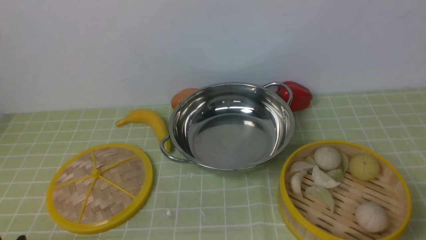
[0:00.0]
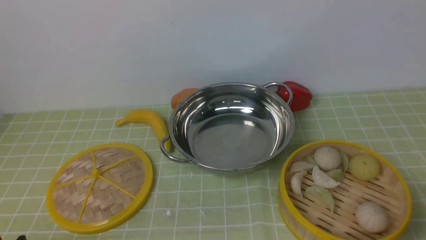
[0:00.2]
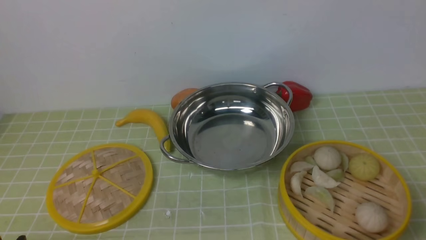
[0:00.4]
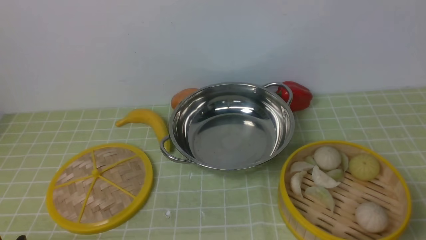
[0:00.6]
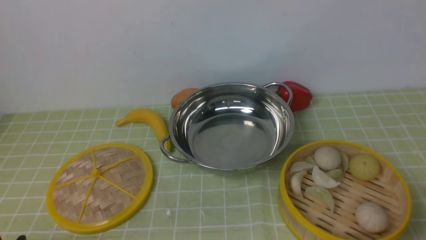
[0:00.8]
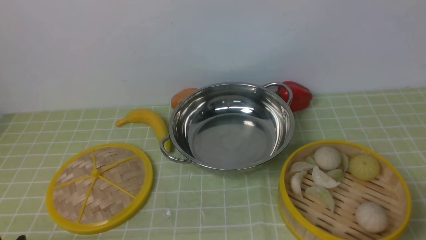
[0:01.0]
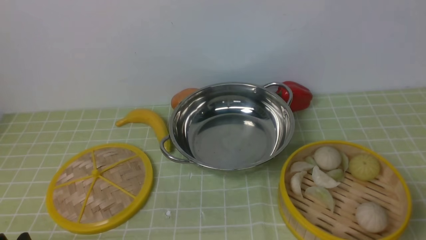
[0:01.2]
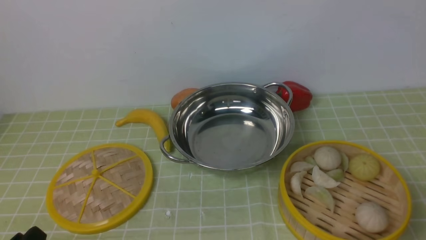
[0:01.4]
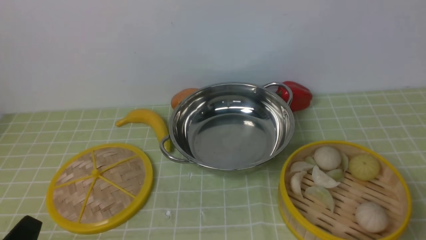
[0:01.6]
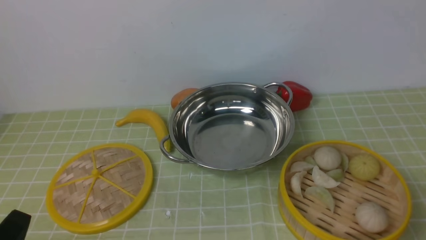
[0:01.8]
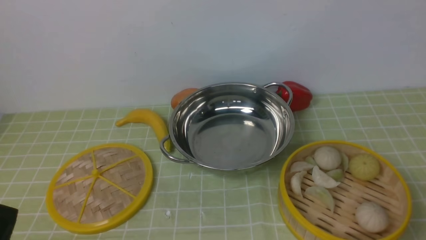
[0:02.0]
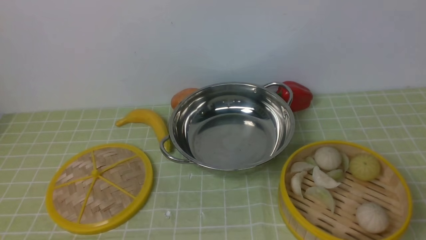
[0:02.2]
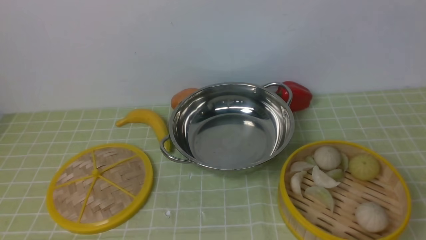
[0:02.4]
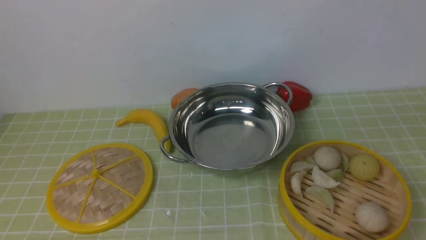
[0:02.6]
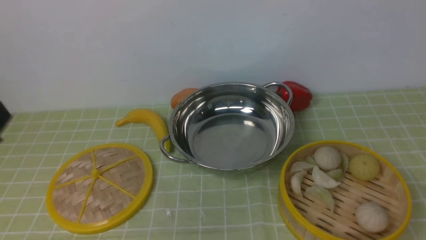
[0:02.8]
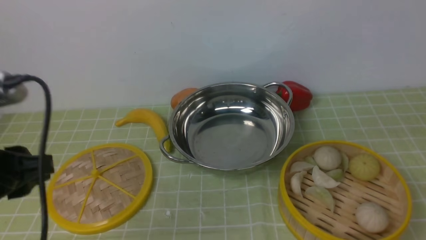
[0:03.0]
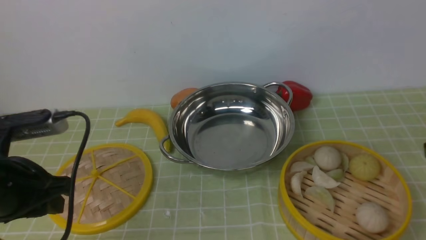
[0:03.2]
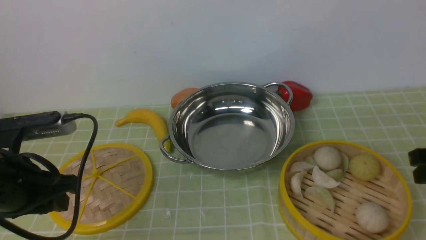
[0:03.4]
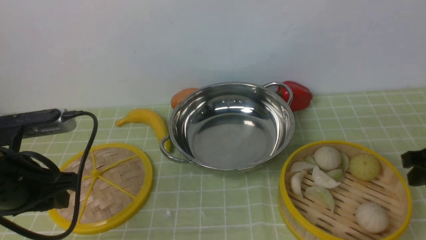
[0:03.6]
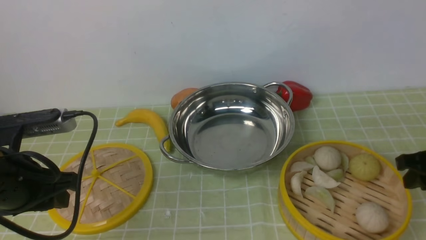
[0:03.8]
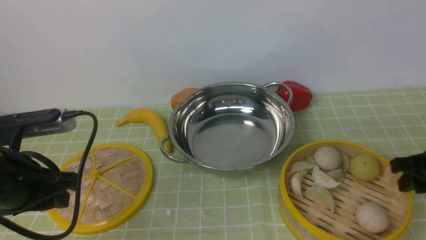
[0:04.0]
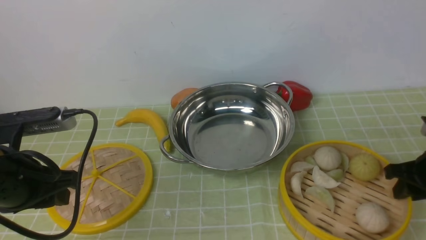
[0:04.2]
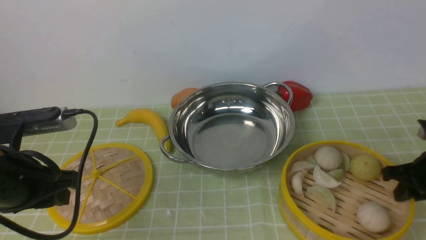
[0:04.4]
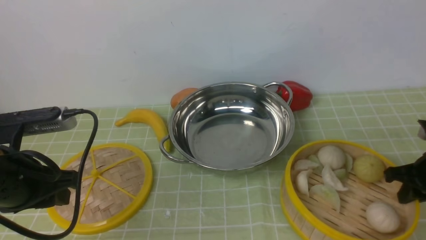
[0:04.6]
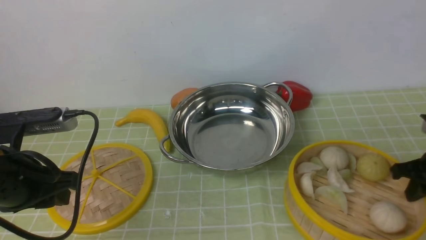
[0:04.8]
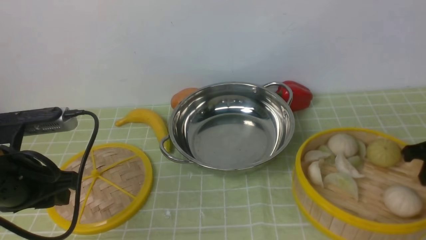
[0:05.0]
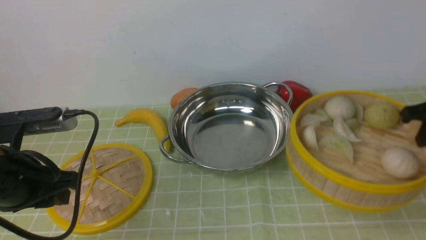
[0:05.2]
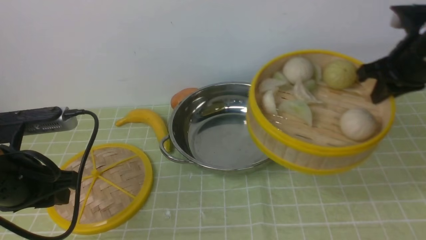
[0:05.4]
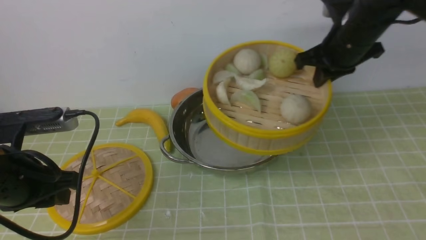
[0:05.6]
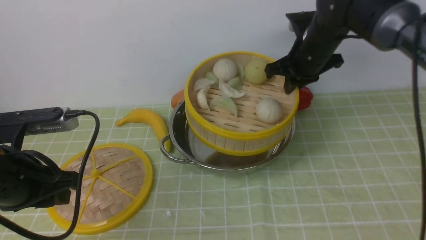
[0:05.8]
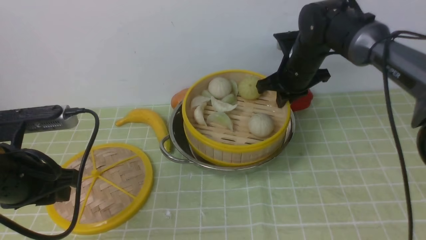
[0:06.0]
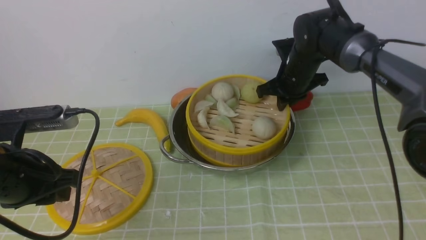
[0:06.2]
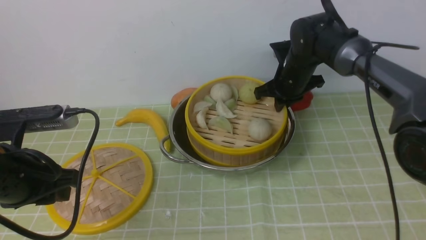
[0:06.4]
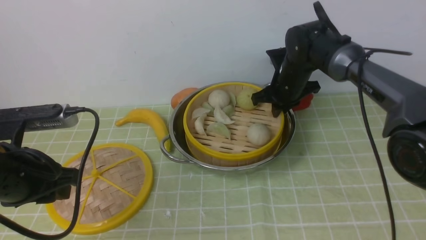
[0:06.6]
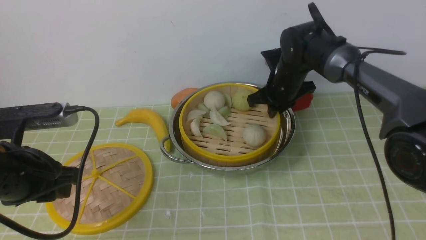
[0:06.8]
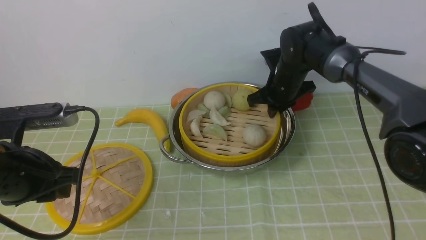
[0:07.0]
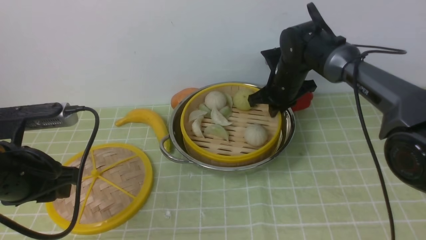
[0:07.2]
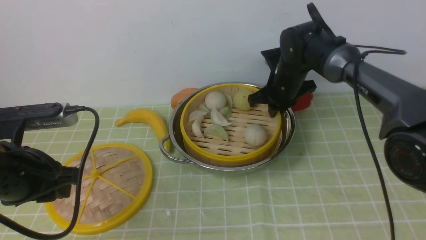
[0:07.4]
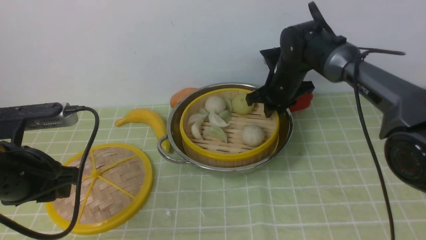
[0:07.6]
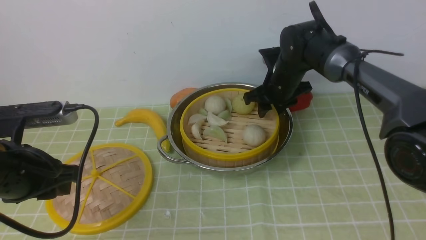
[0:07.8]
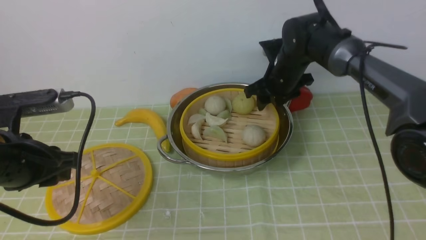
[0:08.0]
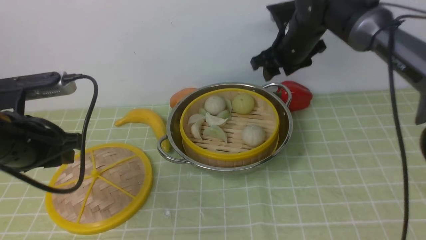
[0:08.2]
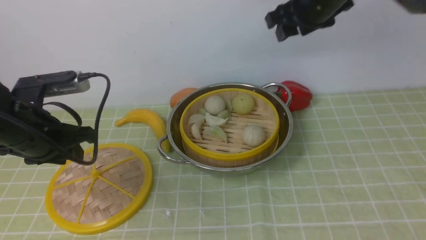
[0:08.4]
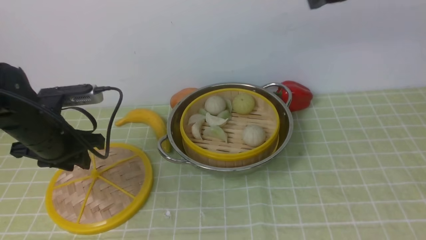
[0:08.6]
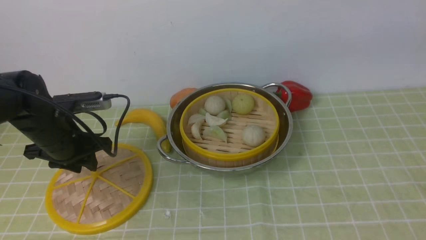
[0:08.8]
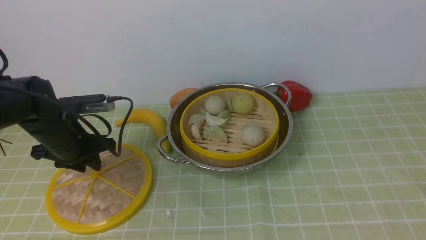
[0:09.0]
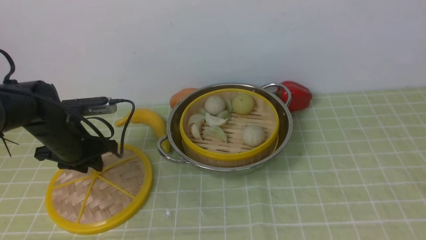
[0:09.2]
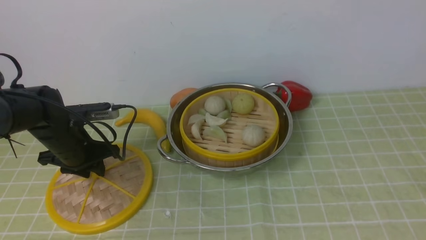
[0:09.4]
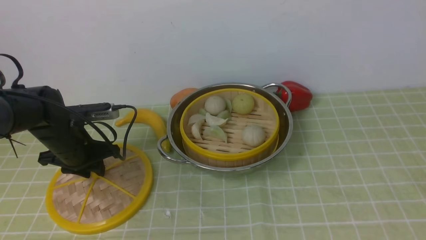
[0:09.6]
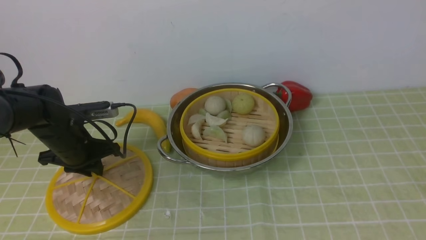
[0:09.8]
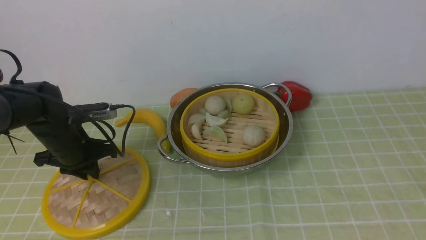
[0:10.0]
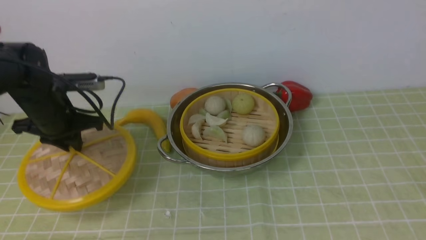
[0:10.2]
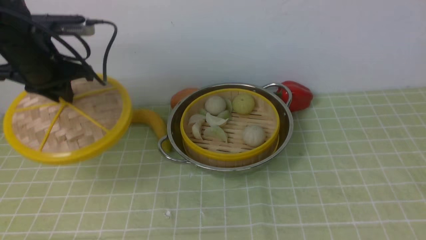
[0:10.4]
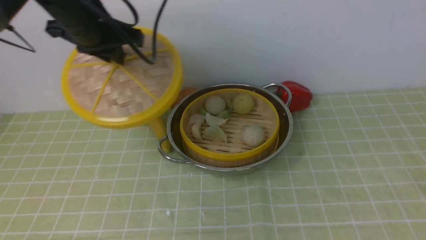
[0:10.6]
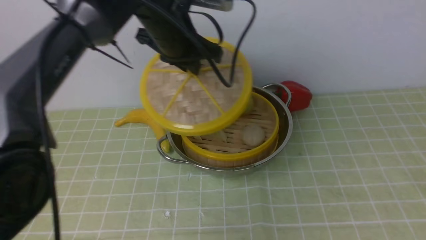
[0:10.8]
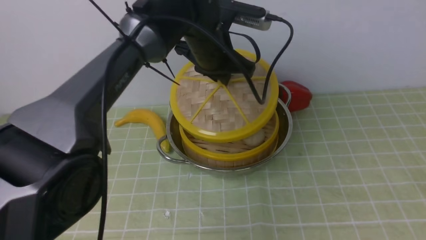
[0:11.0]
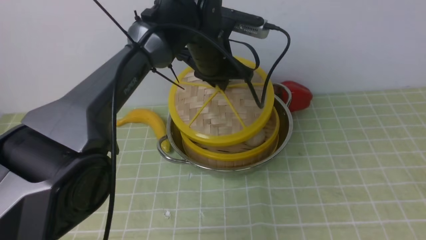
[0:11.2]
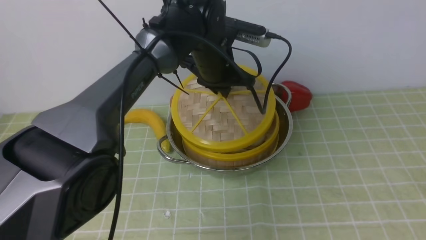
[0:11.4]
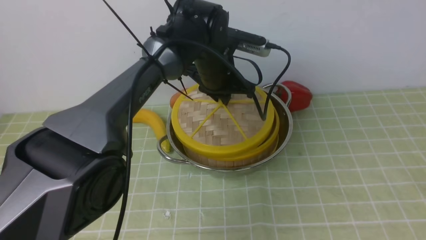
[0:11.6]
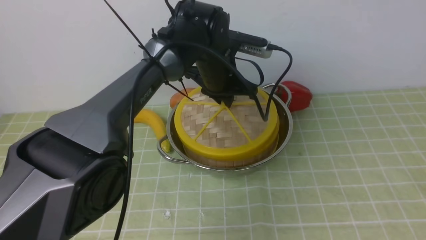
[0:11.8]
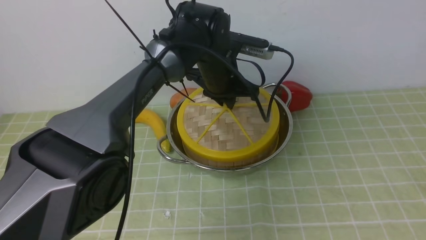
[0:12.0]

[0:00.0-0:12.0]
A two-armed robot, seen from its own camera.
Task of the whole recording: place the steamer in the pot on the green tablecloth, and put the lid on the steamer.
Step, 0.0 to 5.2 s: use the right arm to lift the steamer closest to it.
Step, 5.4 to 8.4 s: use the right arm to put the steamer into the iron steamer pot in the middle.
Step, 8.6 to 10.4 s: use the left arm to lift the lid of the steamer.
1.6 to 3.0 s: The left gripper travels upward and forward by about 15 cm.
3.0 to 4.4 s: The right gripper travels downward and forward by about 20 cm. The left gripper heads downward and forward, covering some 10 cm.
4.4 to 6.0 s: The right gripper heads forward, to the left and upward, covering roughly 25 cm.
6.0 to 7.6 s: The right gripper is displaced downward by about 5 cm.
7.6 to 9.0 s: The right gripper heads backward, upward and to the right, covering approximately 50 cm, and opens up, while the left gripper heads forward and downward, covering approximately 15 cm.
9.0 to 10.4 s: The right gripper shifts some 15 cm backward; the left gripper goes some 10 cm upward.
10.4 to 12.0 s: The left gripper shifts roughly 25 cm to the right.

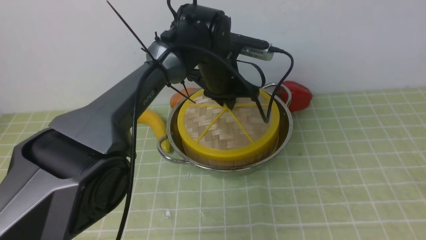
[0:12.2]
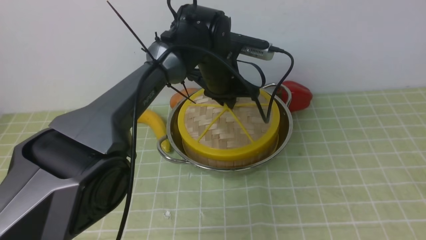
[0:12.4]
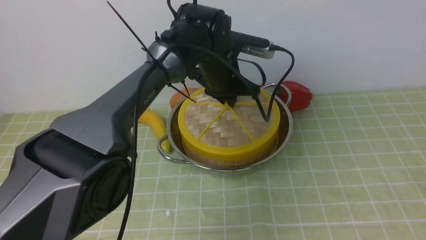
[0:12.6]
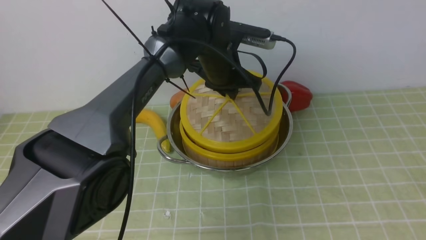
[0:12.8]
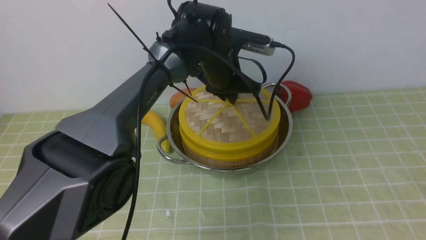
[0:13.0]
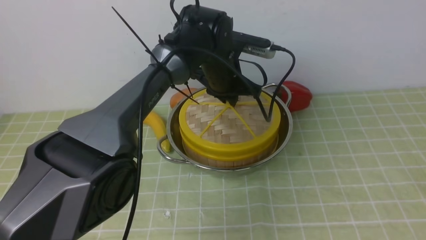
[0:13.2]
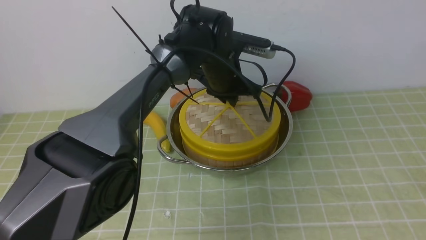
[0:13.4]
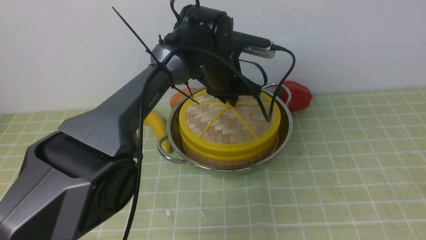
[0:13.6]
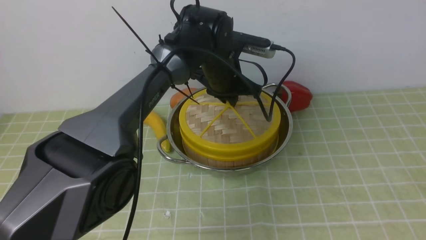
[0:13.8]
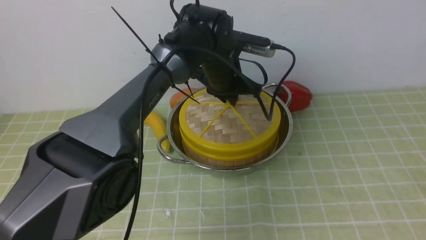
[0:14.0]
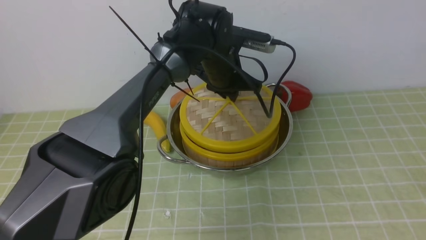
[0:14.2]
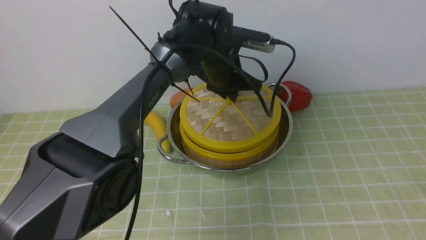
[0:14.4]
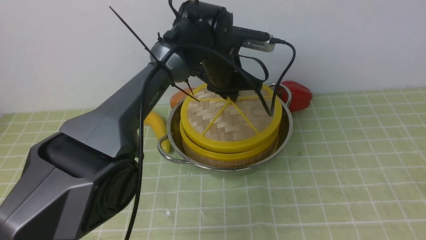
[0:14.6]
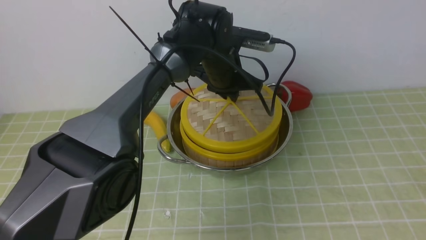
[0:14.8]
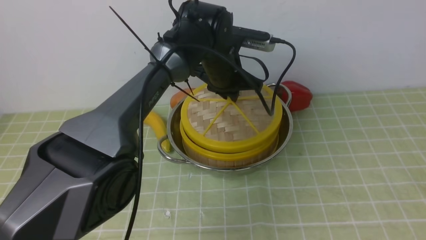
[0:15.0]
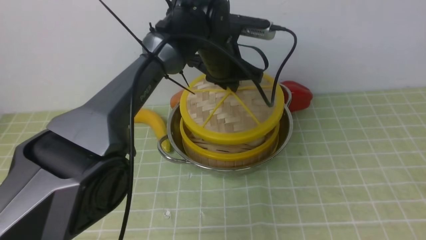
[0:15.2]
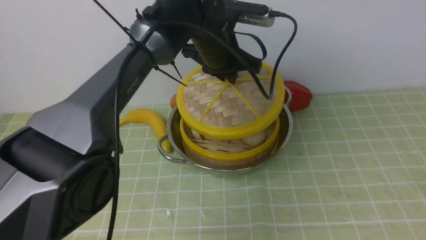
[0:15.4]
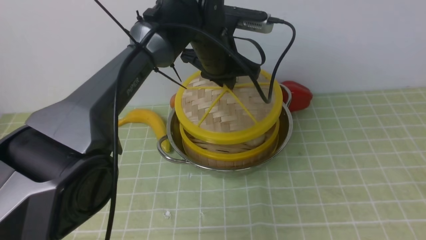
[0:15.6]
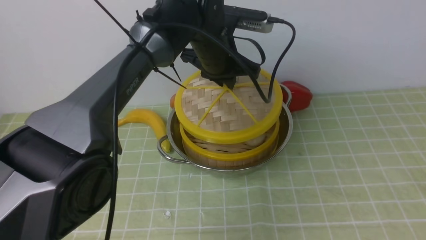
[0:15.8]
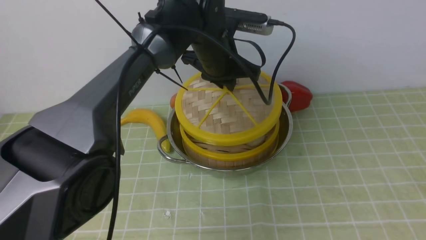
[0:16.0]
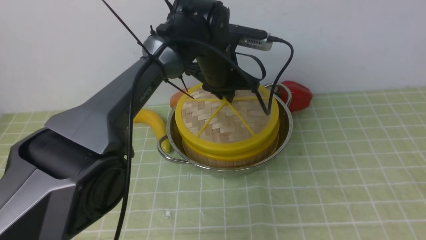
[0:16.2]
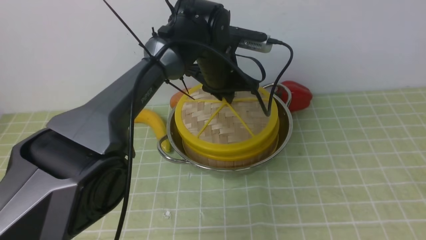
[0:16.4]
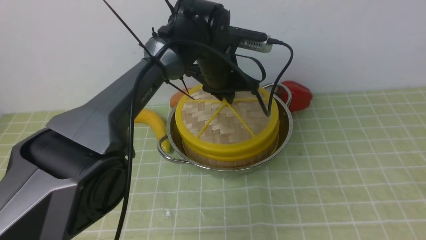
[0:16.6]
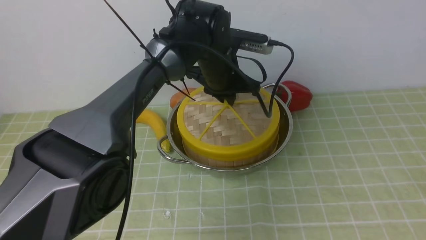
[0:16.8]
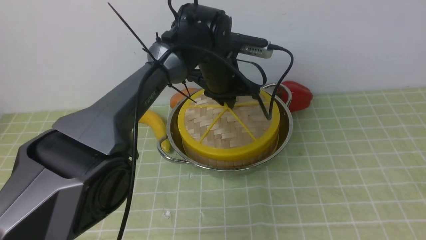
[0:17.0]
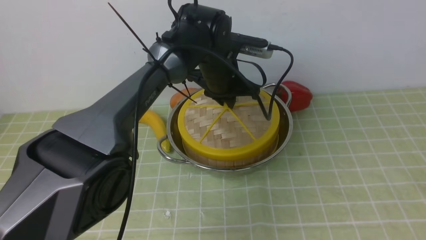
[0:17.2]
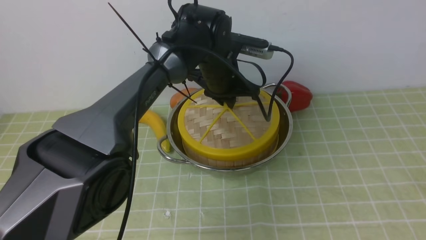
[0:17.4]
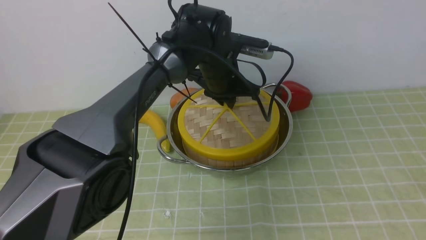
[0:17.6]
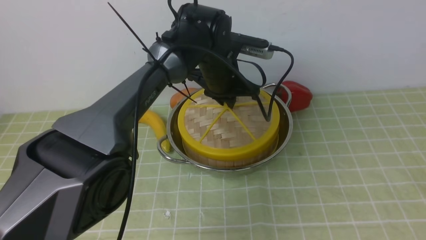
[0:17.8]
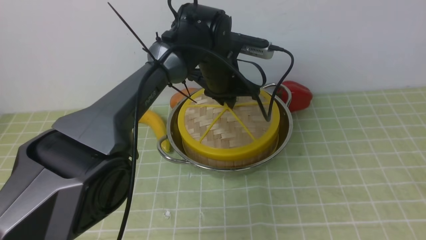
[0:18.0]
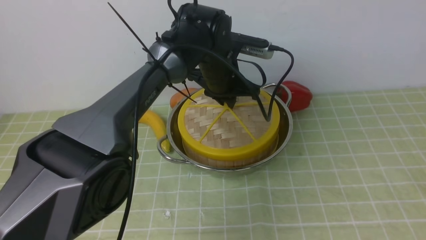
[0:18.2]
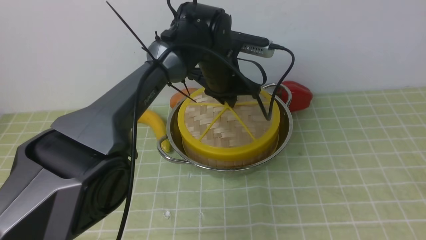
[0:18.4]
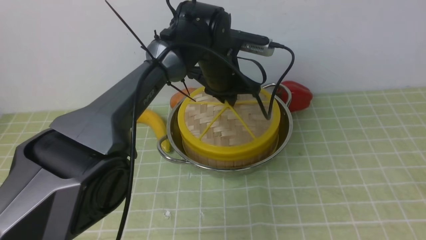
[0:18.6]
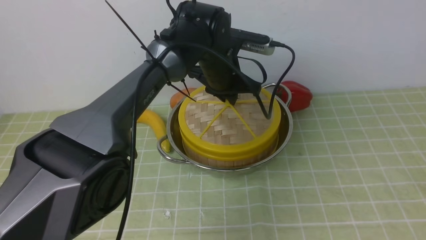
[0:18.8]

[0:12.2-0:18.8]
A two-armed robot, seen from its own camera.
Task of the whole recording: place the steamer in the pot on the green tablecloth, and put the lid on the steamer.
12.2 to 13.8 s: There are only small adjustments of the grippers.
17.2 to 18.8 s: The two grippers keep their place.
